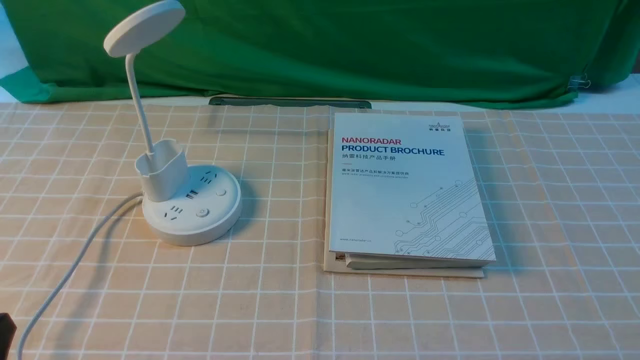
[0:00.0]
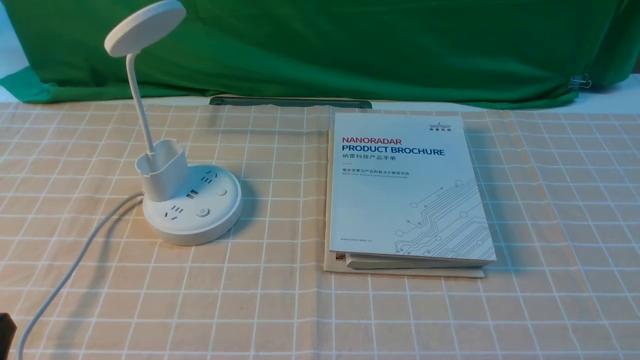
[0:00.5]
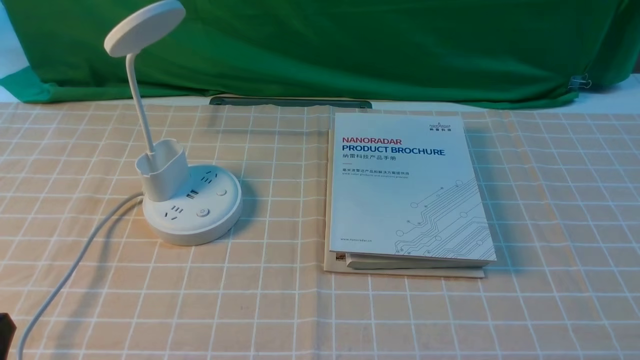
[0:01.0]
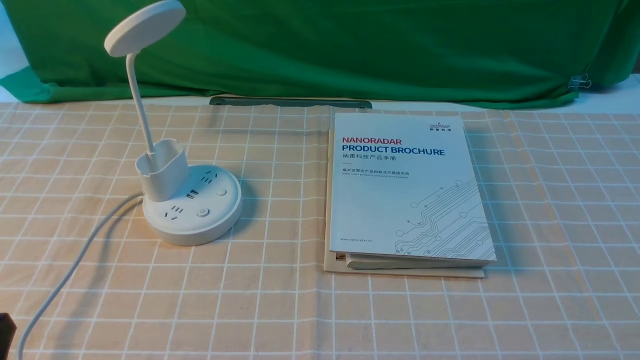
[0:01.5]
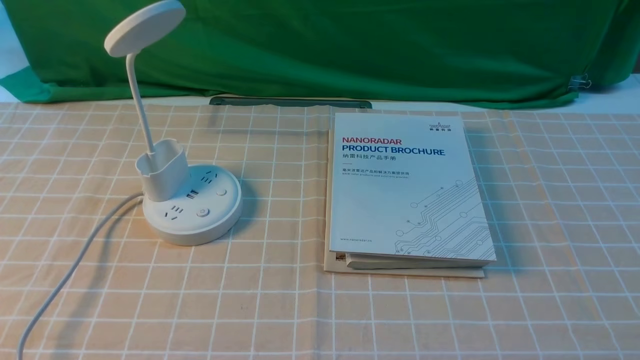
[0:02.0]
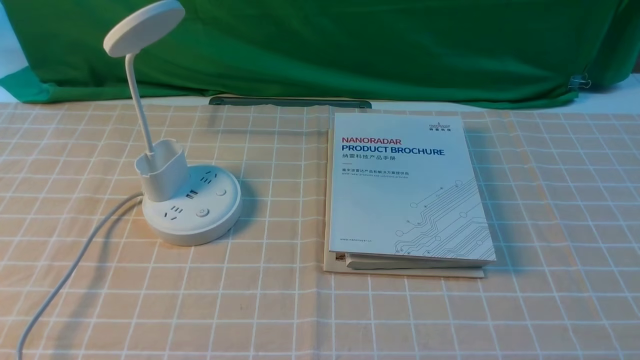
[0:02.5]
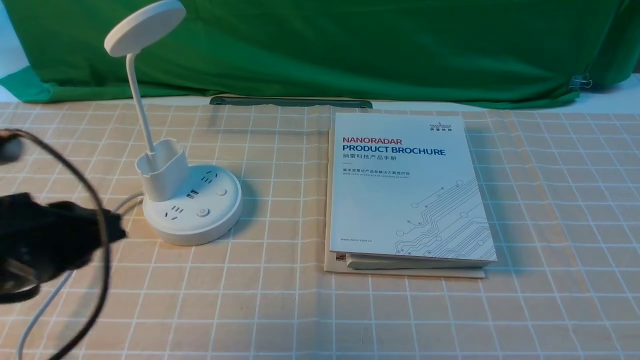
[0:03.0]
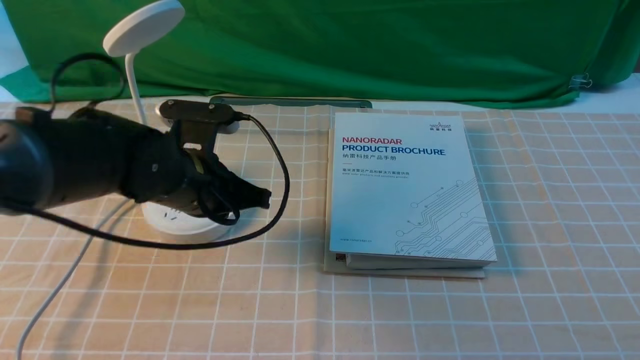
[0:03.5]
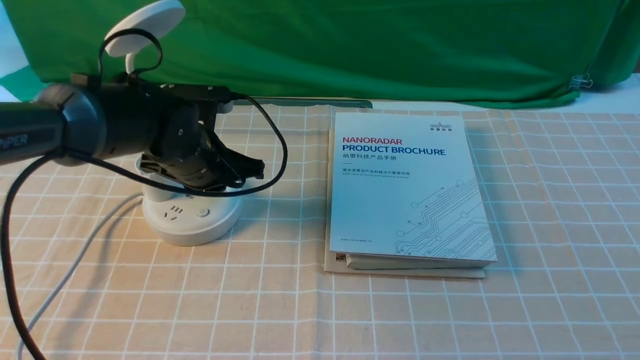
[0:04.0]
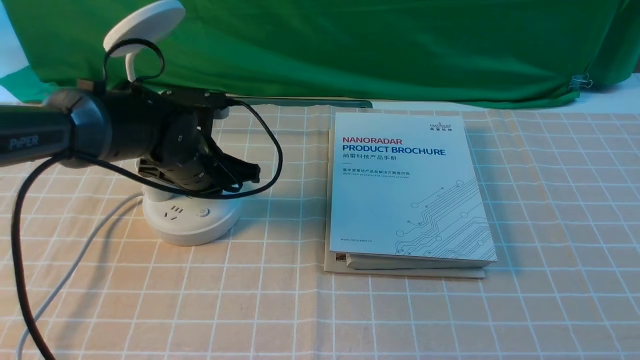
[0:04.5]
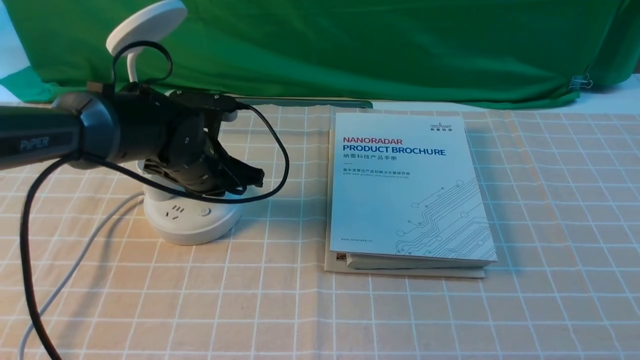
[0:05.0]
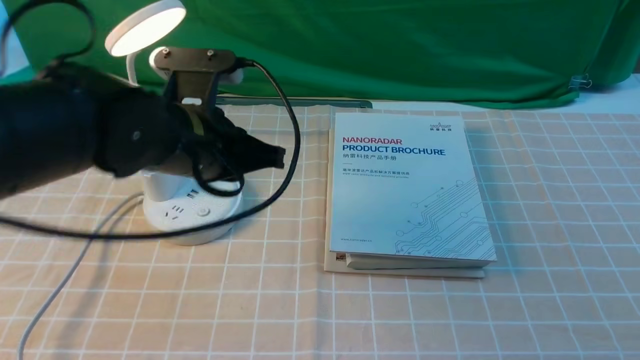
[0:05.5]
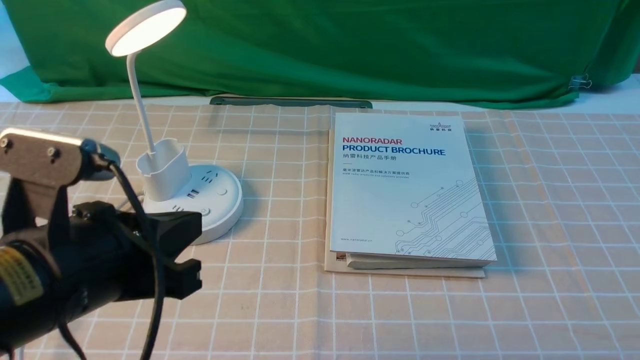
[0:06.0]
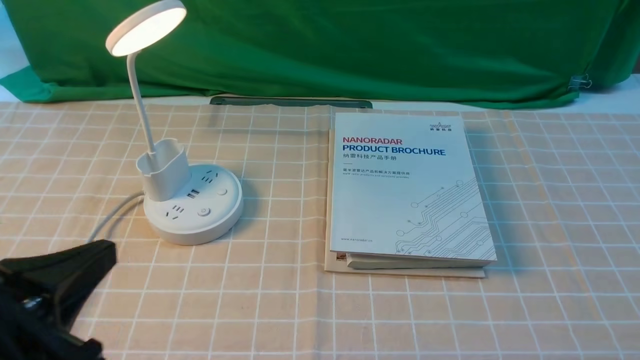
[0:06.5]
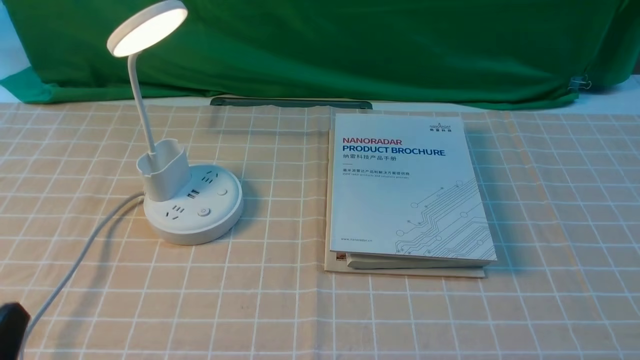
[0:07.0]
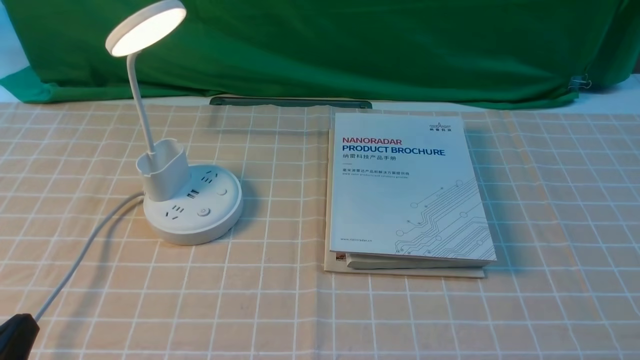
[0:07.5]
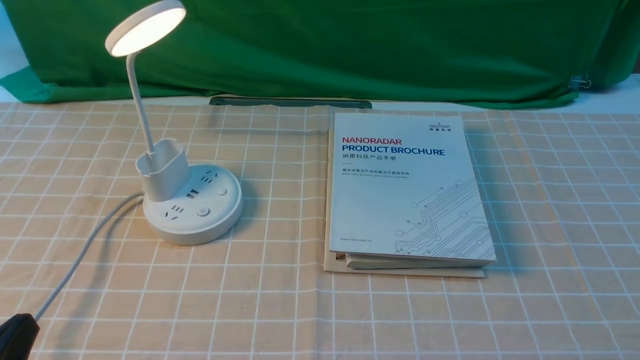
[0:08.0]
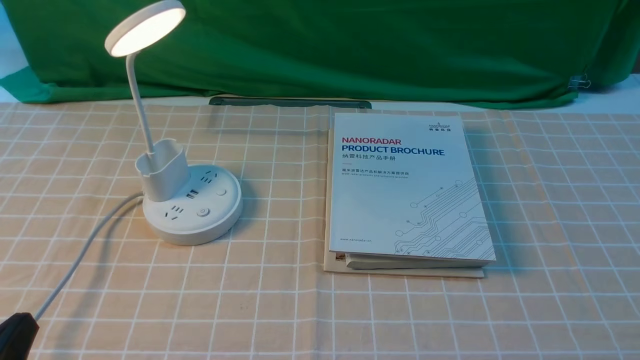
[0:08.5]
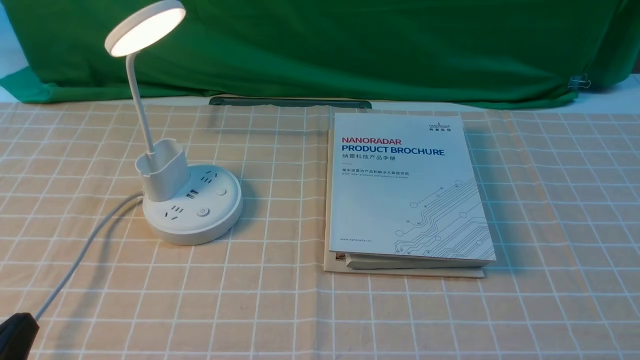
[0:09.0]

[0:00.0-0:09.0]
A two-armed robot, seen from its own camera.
Step, 0:00.0 to 0:05.5: use the left arm to press the button switch on the lamp holder.
0:02.0 to 0:04.5: The left gripper heads forward, covering approximately 35 cm, and closes up.
0:04.5 to 0:07.0: The left gripper moves backward, roughly 35 cm, and opens up.
0:07.0 to 0:09.0: The grippers stay close to where they were, moving slightly.
